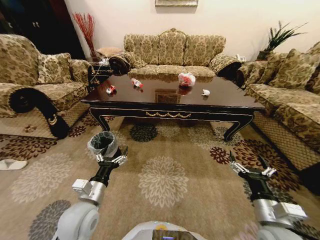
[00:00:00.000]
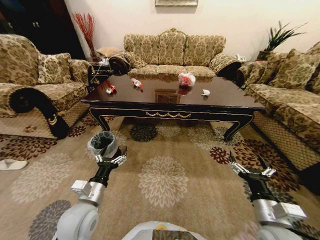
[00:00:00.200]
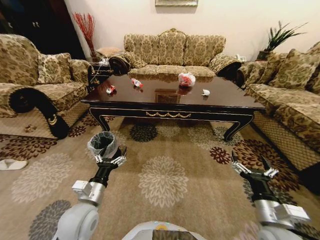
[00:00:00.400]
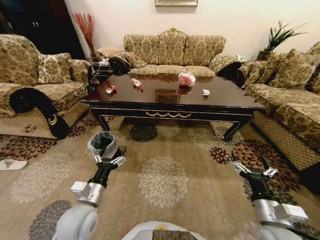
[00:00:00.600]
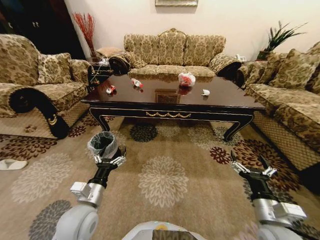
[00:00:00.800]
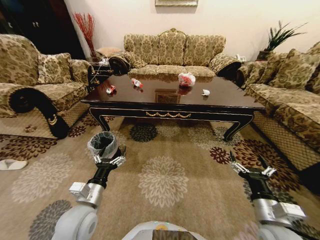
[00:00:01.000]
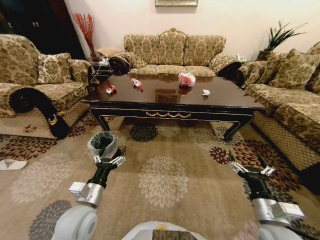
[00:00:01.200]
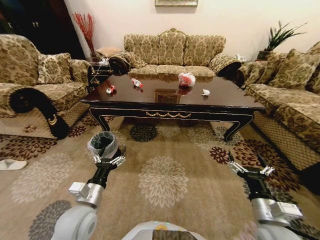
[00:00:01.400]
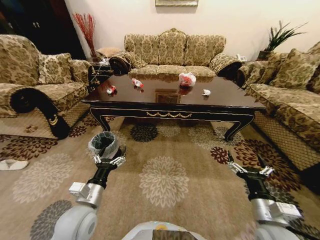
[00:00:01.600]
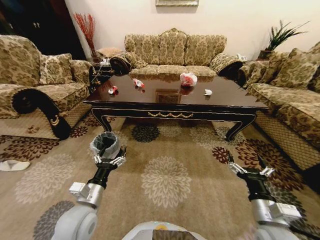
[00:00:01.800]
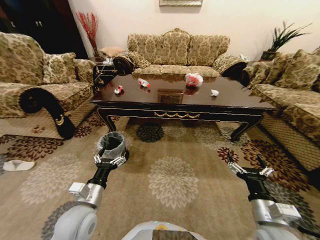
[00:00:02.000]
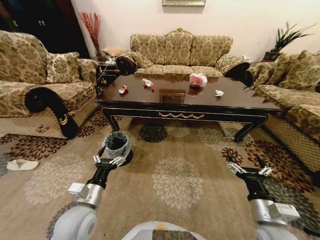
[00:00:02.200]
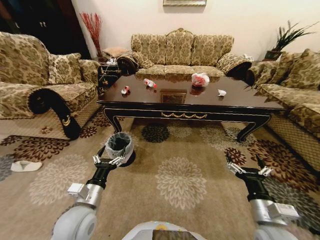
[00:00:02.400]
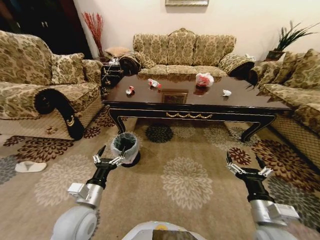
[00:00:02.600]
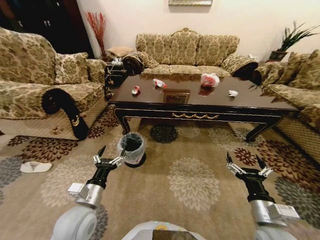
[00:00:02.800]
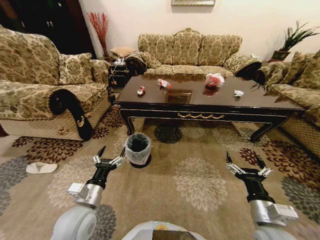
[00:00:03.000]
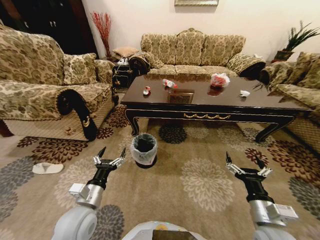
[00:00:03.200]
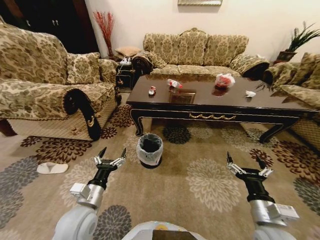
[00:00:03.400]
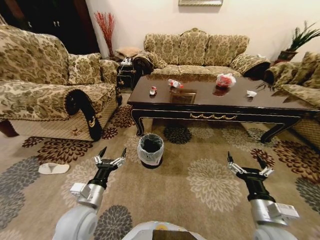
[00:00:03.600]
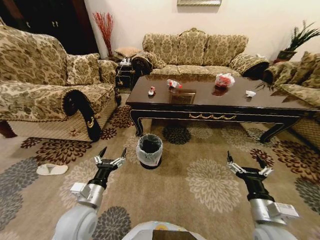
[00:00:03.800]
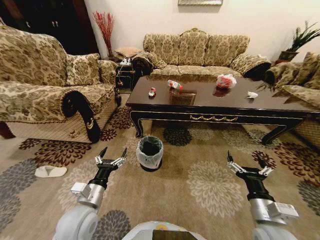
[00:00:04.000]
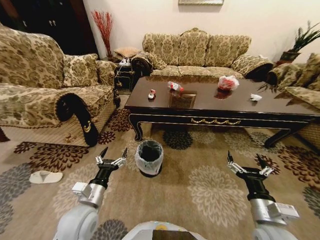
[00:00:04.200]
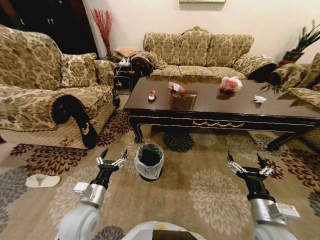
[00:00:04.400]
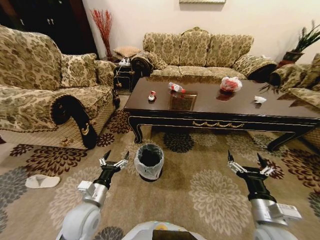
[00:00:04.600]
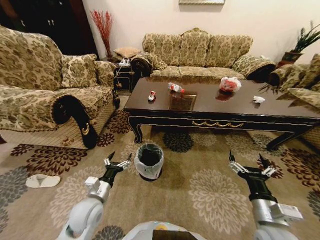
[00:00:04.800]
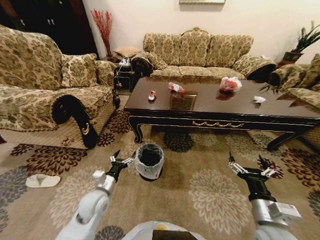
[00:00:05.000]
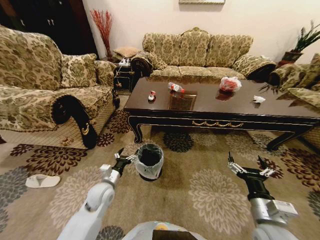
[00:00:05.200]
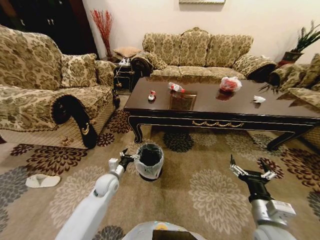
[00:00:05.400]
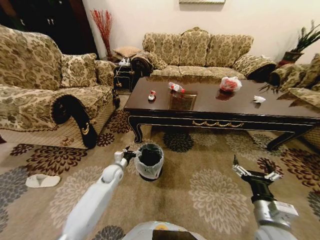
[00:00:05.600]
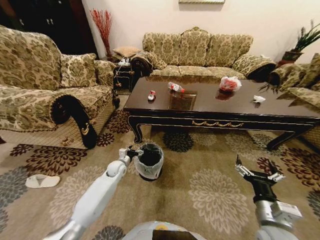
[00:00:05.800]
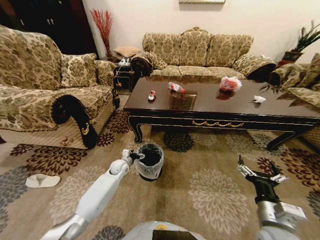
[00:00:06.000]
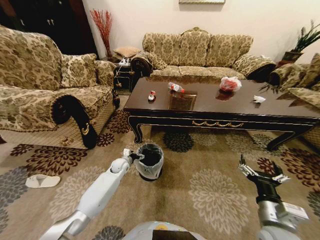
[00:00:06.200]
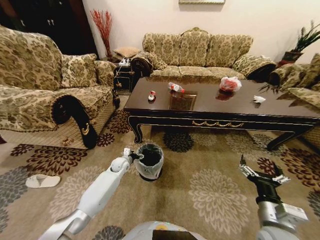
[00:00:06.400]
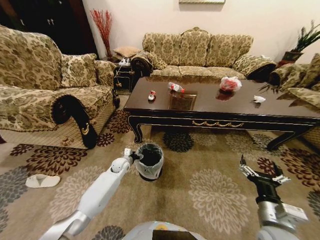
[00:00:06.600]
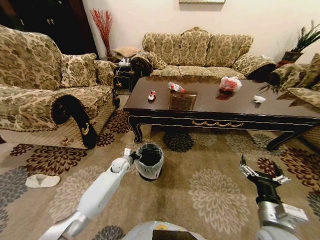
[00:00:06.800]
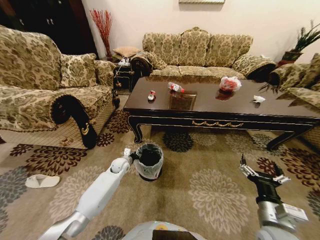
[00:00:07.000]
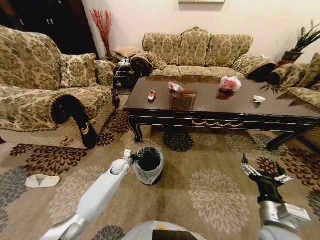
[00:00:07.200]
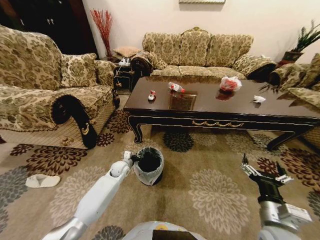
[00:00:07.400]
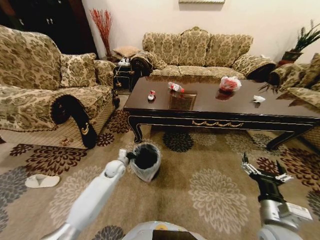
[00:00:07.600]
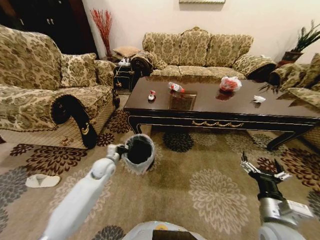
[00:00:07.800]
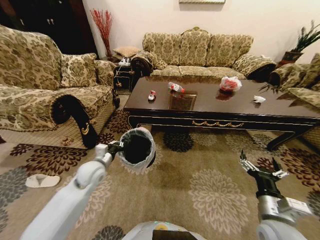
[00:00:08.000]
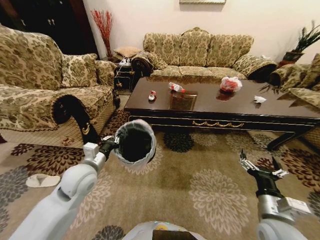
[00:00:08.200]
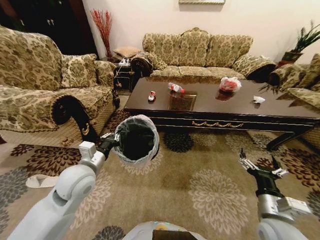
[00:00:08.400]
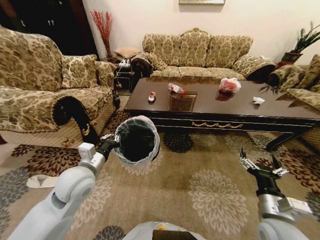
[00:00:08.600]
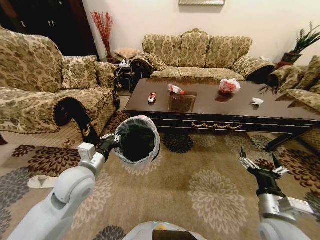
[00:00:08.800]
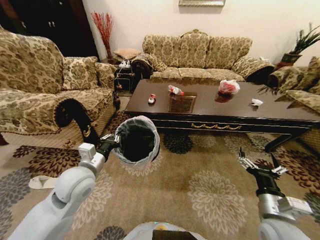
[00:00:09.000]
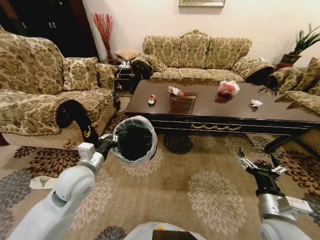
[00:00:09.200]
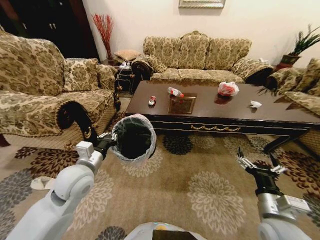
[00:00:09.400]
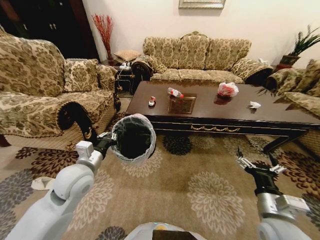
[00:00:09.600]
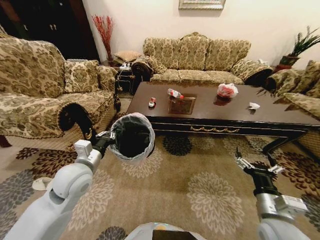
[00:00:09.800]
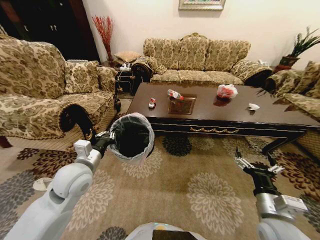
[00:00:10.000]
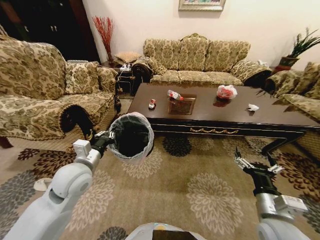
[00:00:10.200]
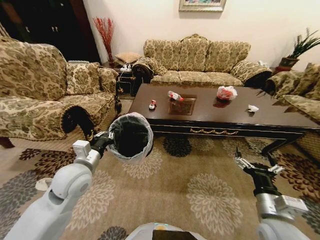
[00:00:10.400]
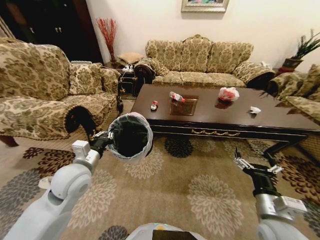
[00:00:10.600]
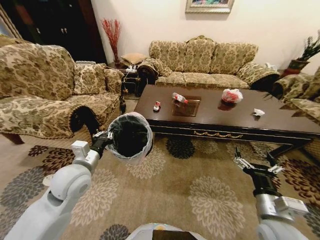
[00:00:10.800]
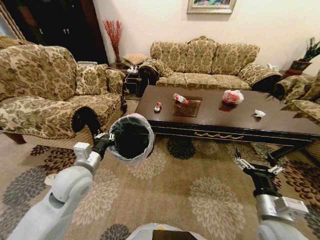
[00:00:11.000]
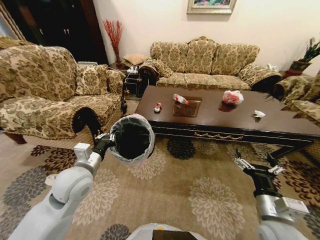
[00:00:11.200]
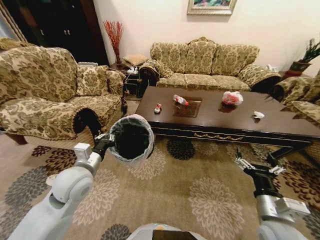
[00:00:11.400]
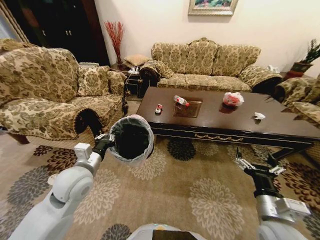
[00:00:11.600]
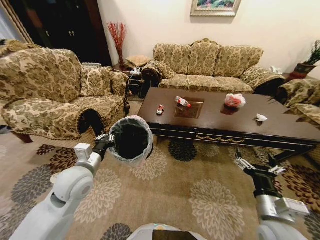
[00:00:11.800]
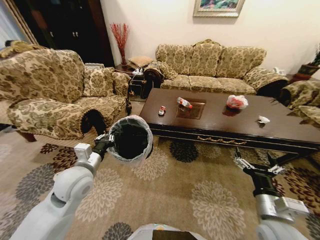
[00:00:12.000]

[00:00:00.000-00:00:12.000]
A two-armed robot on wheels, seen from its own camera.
Task of the whole recording: Move to the front of the table and place the trash on the table into the trash bin.
00:00:04.400 to 00:00:06.000: The left gripper shifts about 30 cm forward and downward.
00:00:06.000 to 00:00:07.600: The left gripper closes.
00:00:07.600 to 00:00:09.000: The left gripper travels upward and backward by about 25 cm.

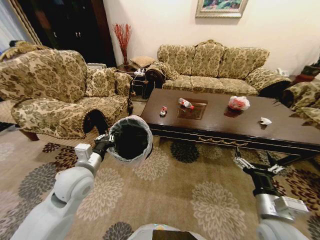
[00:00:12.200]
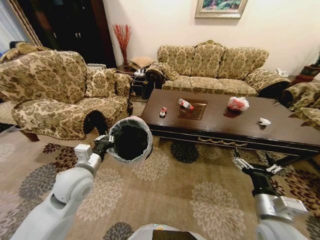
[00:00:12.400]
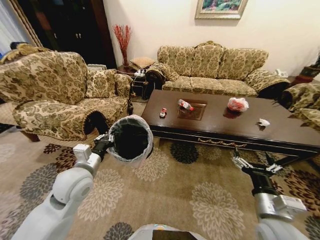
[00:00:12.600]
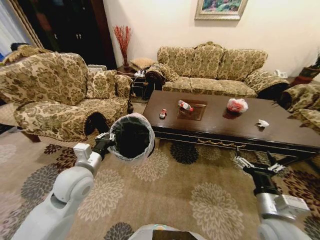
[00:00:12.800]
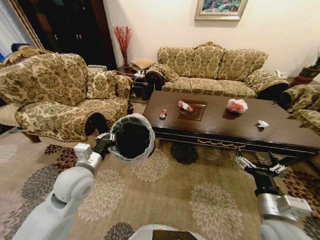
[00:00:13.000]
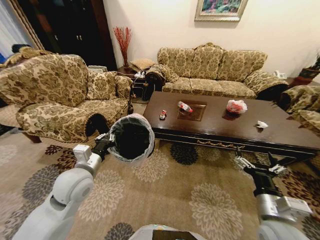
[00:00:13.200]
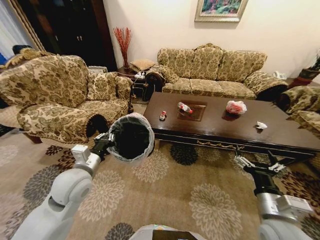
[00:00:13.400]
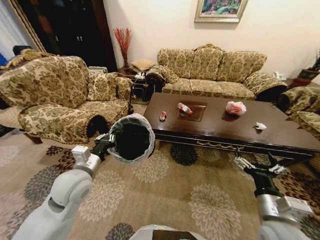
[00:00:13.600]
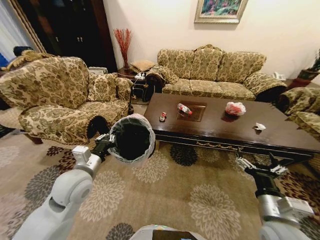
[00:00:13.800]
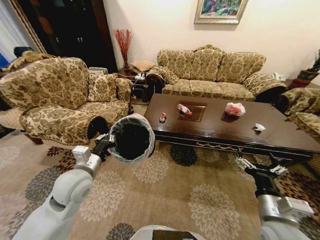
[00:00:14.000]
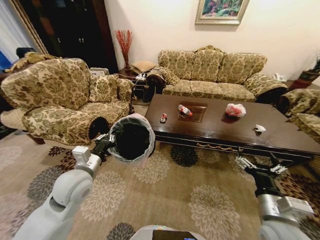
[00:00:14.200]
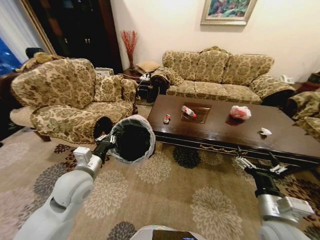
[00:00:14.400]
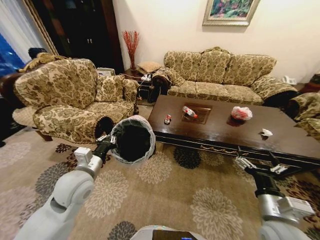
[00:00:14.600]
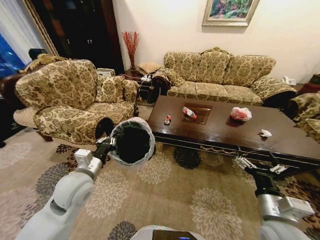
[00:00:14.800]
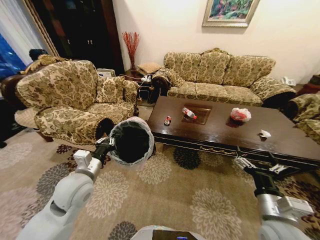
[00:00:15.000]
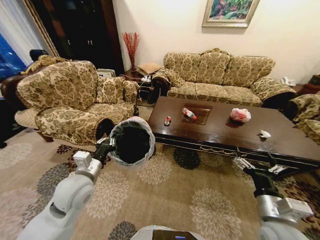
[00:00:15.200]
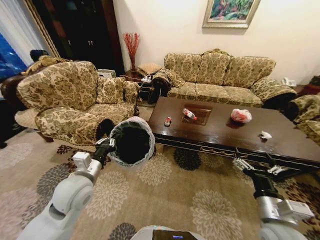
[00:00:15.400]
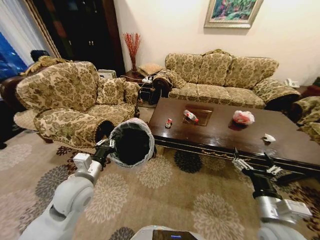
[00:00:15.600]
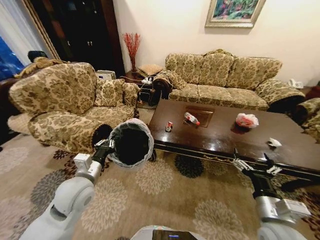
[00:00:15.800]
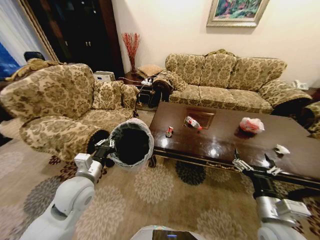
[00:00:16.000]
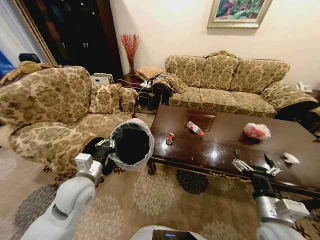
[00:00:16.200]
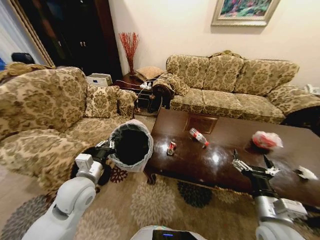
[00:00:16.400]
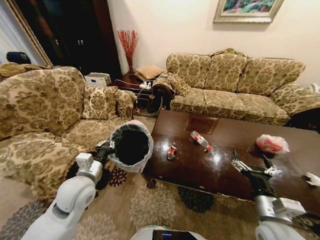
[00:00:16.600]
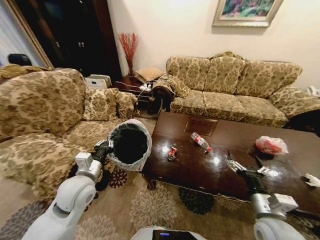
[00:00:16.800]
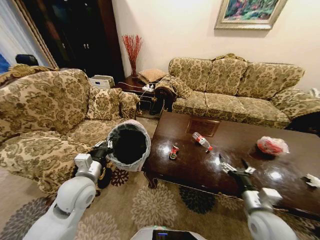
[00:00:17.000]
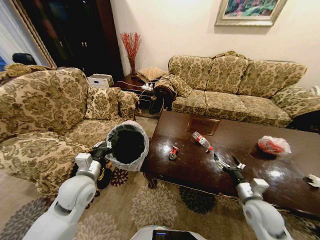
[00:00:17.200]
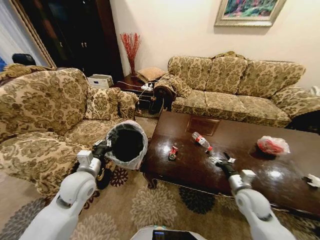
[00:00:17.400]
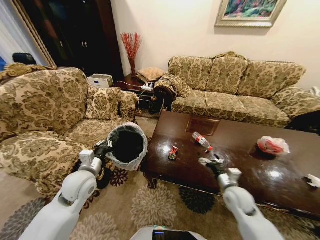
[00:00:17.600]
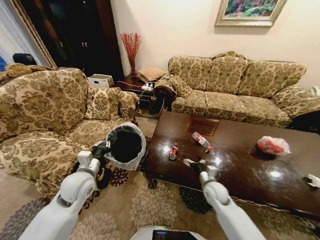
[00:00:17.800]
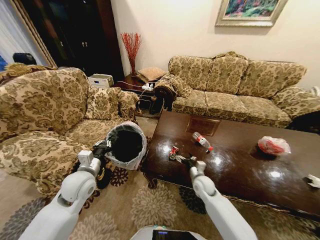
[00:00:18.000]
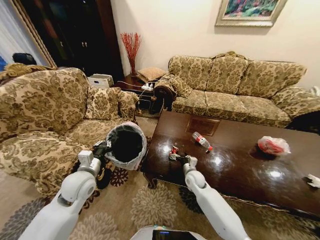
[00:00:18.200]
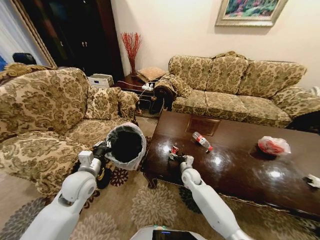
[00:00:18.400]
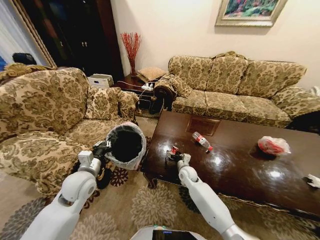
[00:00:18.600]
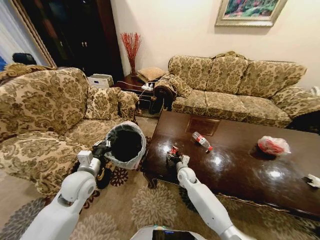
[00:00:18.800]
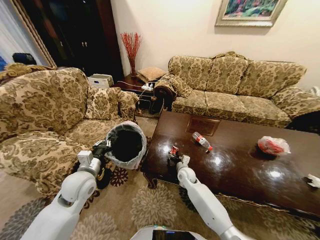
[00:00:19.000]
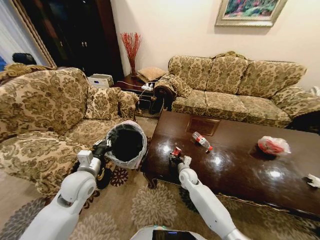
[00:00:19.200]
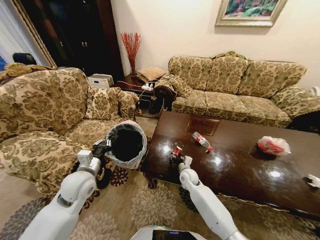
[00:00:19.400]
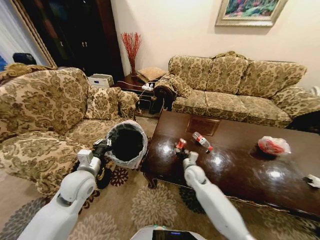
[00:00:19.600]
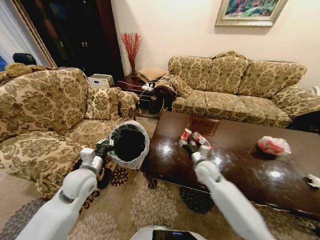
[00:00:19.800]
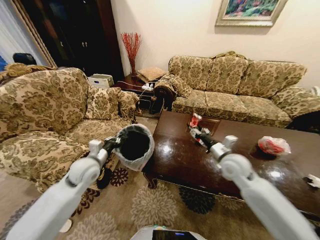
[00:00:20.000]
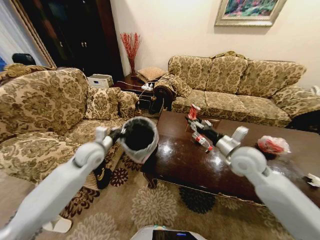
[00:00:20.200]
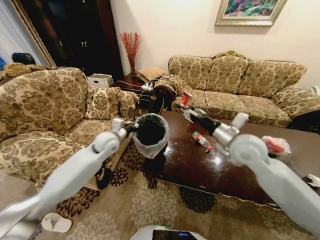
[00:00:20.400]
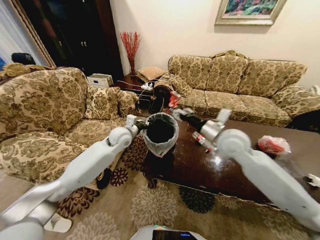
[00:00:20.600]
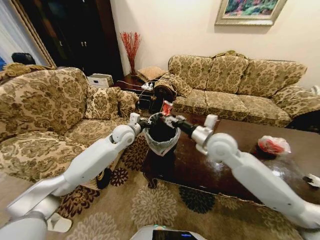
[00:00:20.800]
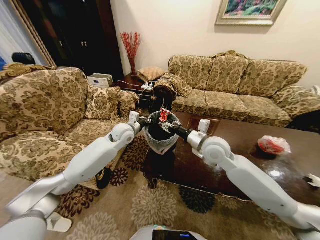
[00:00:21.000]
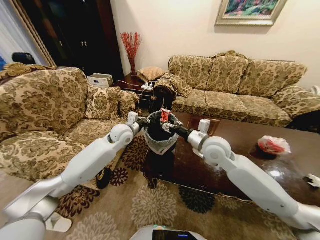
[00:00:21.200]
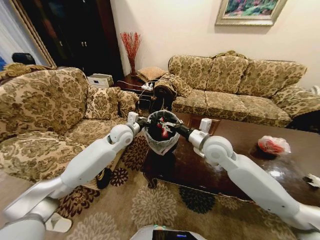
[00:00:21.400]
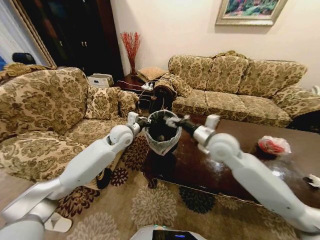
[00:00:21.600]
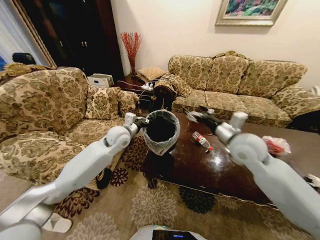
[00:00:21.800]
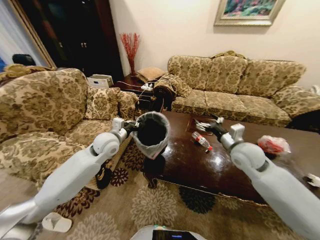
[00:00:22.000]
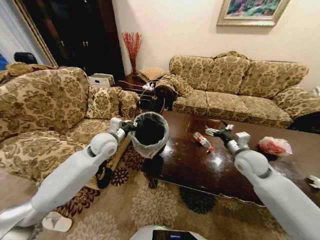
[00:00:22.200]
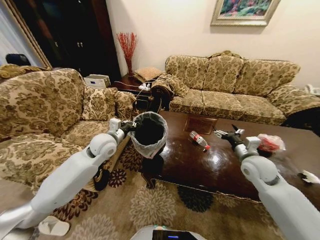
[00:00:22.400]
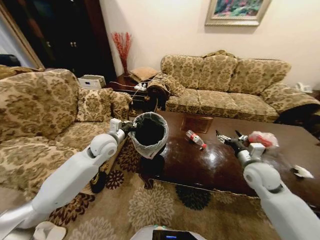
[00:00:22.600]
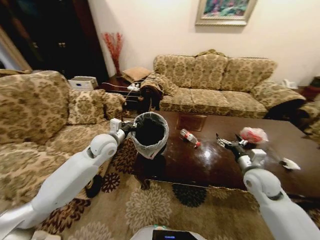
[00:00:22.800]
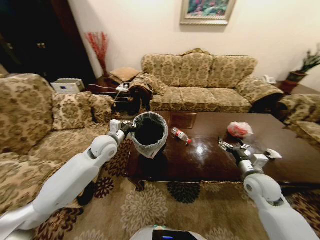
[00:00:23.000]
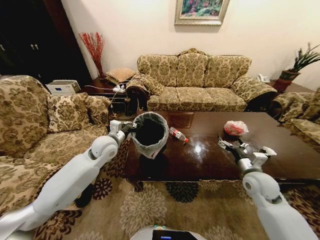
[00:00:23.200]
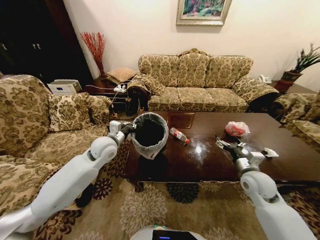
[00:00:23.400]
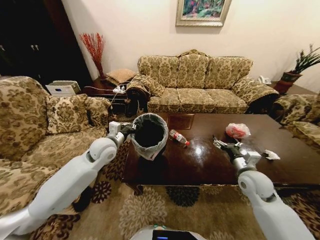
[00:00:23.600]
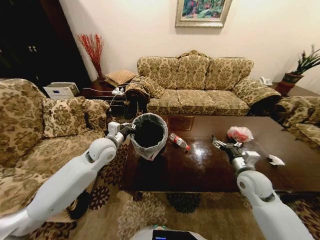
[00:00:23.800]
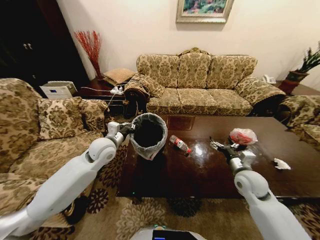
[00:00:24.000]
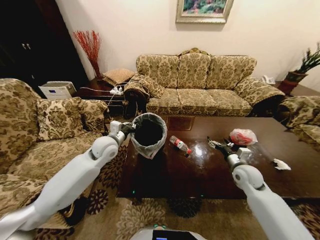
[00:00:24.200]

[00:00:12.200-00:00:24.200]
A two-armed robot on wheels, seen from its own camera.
Task of the whole recording: Move to the front of the table and place the trash on the table into the trash bin.
00:00:16.600 to 00:00:18.200: The right gripper travels forward, downward and to the left by approximately 30 cm.
00:00:18.200 to 00:00:19.800: The right gripper heads upward, covering some 15 cm, and closes up.
00:00:19.800 to 00:00:21.200: The right gripper travels upward by roughly 15 cm, while the left gripper goes some 20 cm forward and to the right.
00:00:21.200 to 00:00:22.600: The left gripper shifts some 10 cm backward and to the left, while the right gripper travels to the right and downward by some 20 cm, and opens its fingers.
00:00:22.600 to 00:00:24.200: The right gripper heads downward, covering about 5 cm.
